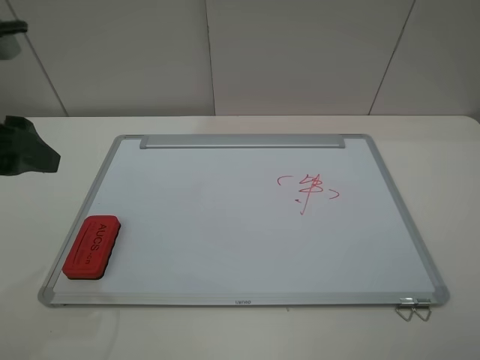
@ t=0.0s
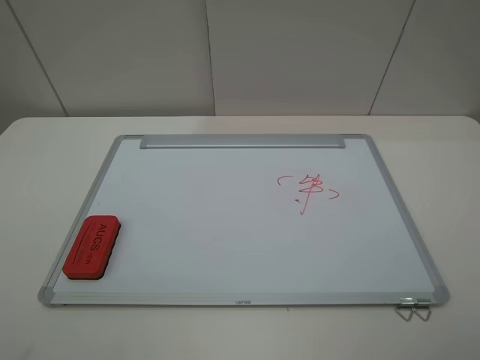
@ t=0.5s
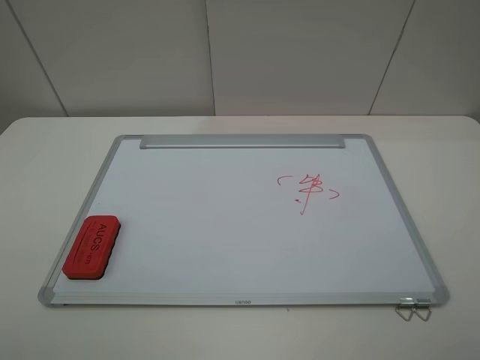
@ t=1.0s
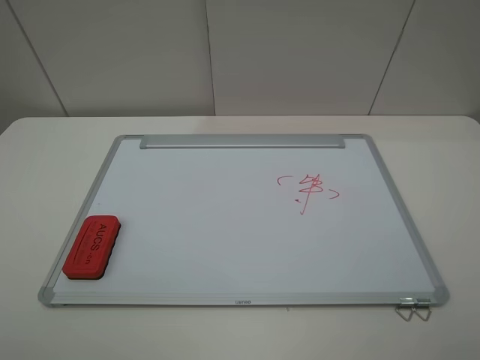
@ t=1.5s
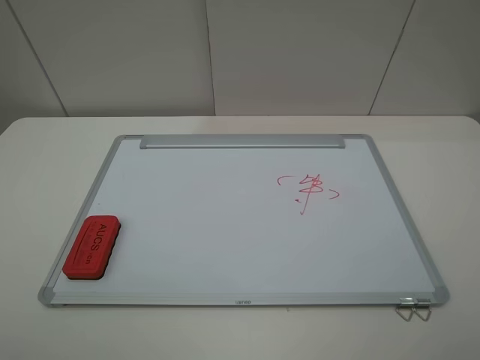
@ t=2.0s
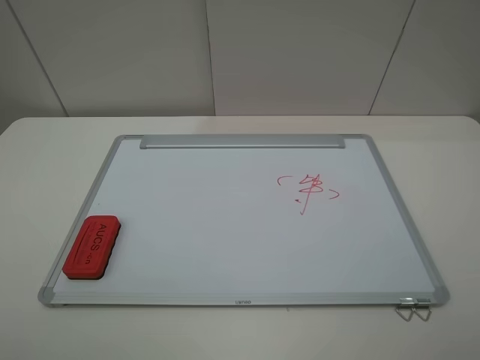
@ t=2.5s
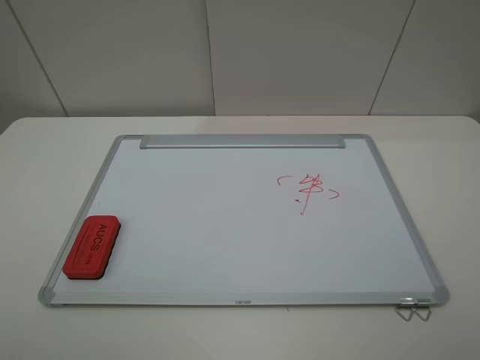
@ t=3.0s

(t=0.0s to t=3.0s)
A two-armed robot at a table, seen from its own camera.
t=0.0s - t=1.5s: The left gripper heads backward, covering some 20 cm.
